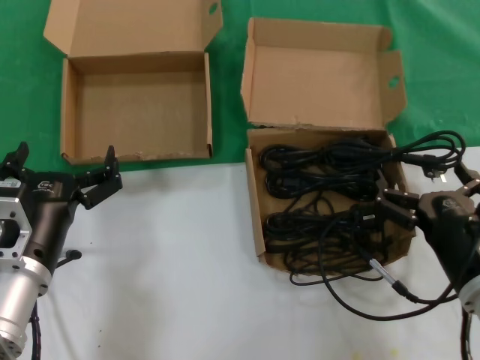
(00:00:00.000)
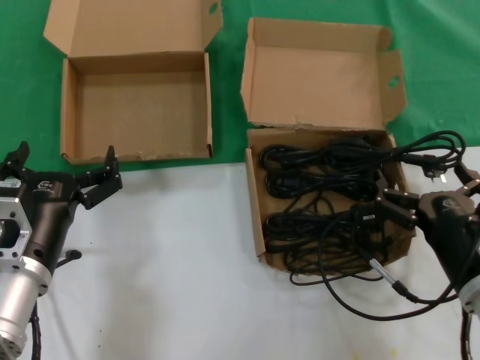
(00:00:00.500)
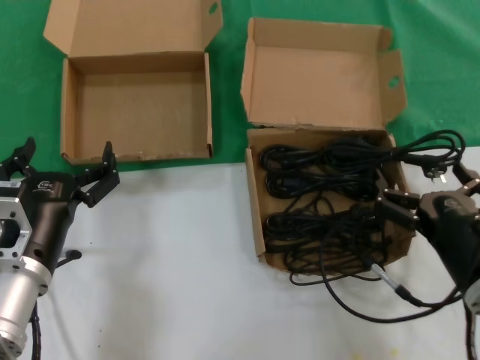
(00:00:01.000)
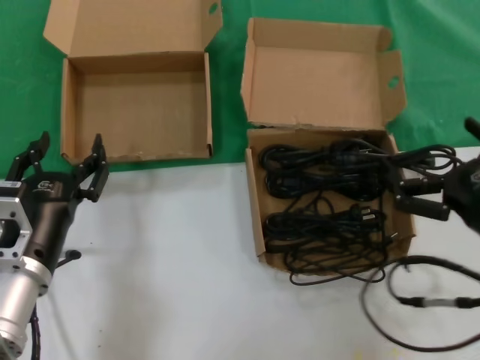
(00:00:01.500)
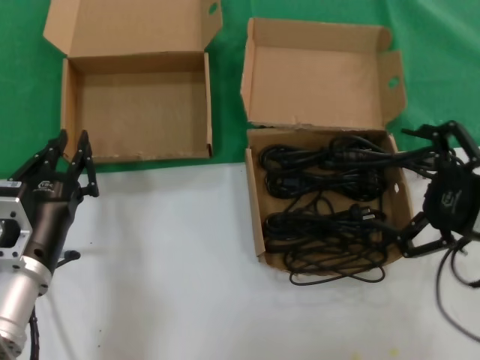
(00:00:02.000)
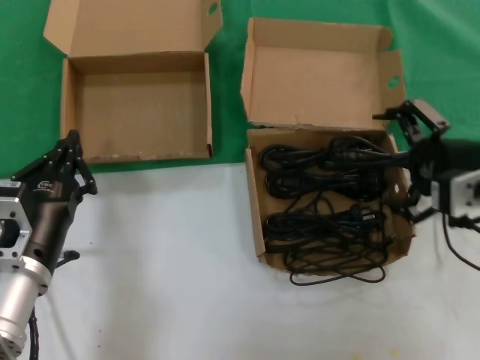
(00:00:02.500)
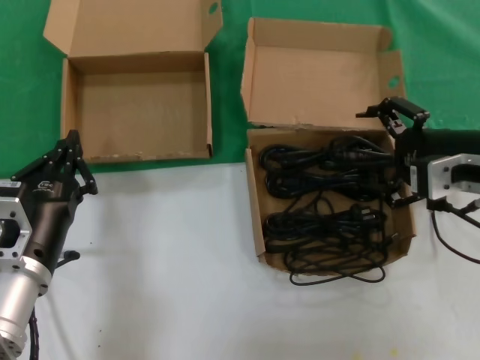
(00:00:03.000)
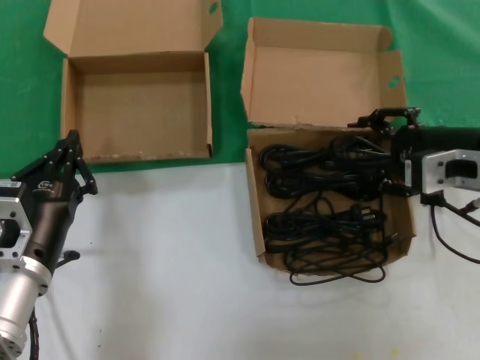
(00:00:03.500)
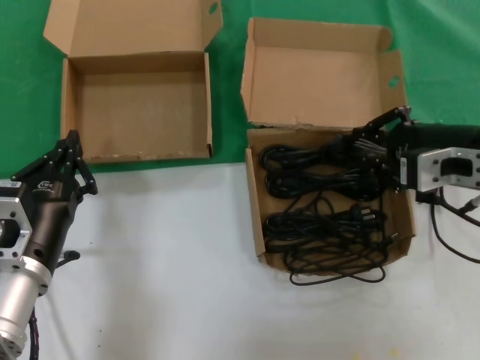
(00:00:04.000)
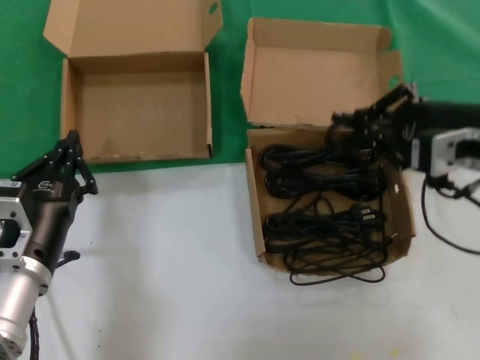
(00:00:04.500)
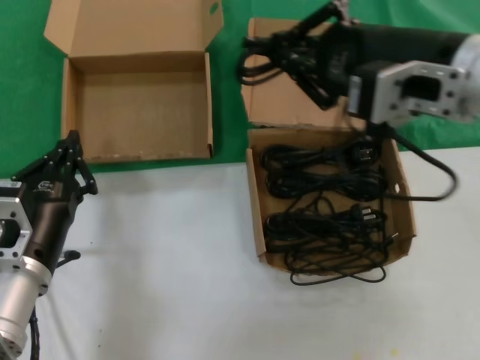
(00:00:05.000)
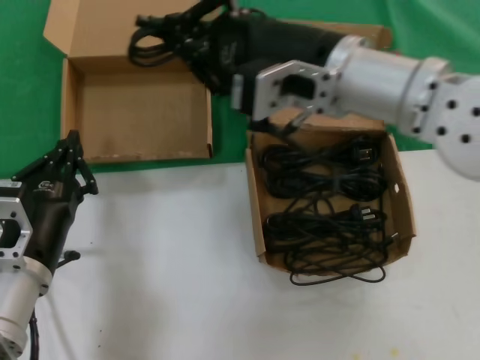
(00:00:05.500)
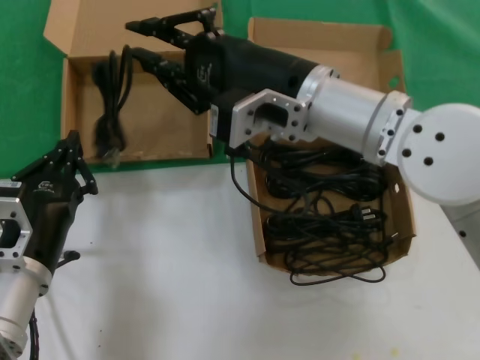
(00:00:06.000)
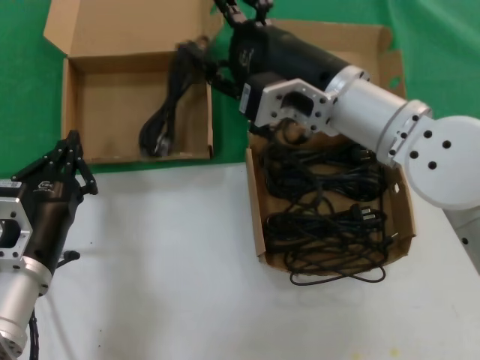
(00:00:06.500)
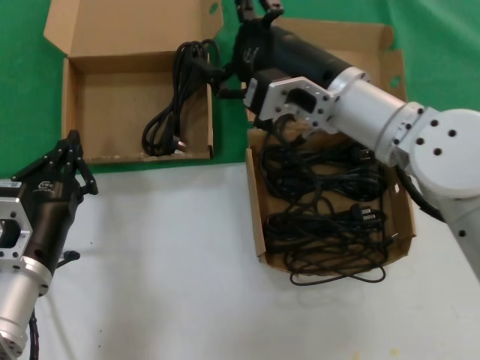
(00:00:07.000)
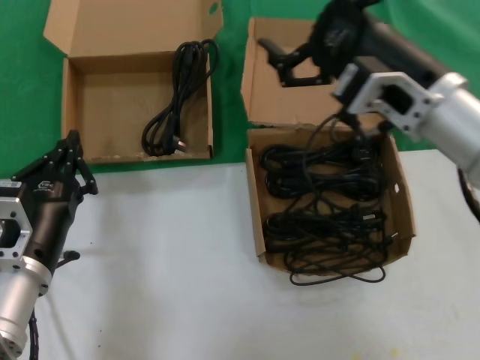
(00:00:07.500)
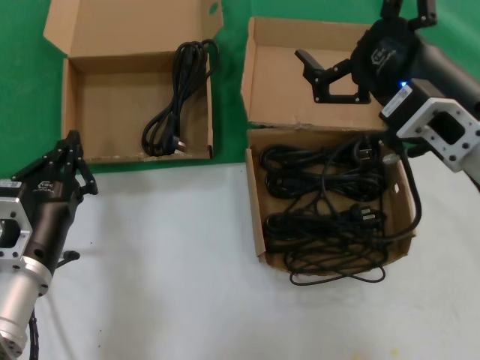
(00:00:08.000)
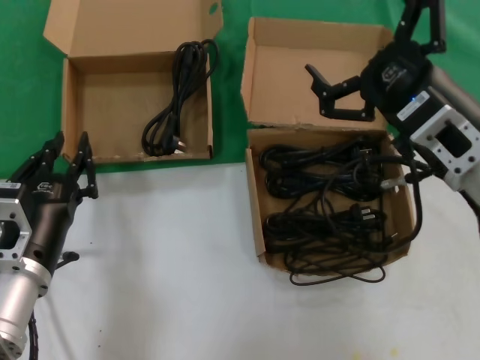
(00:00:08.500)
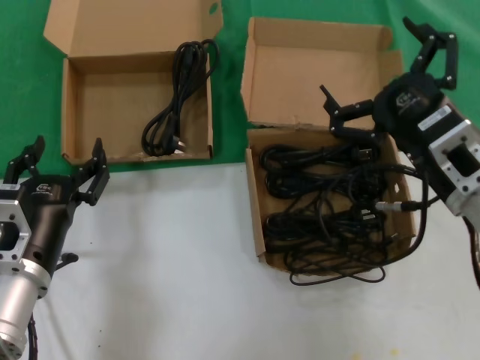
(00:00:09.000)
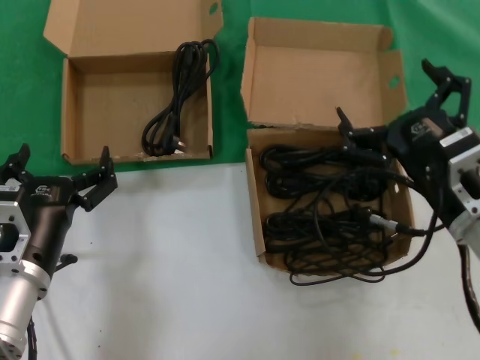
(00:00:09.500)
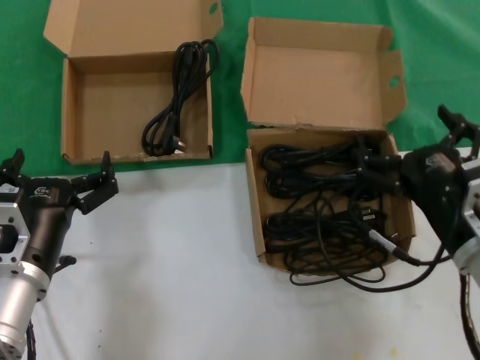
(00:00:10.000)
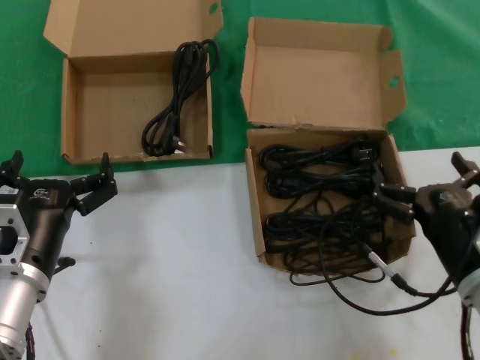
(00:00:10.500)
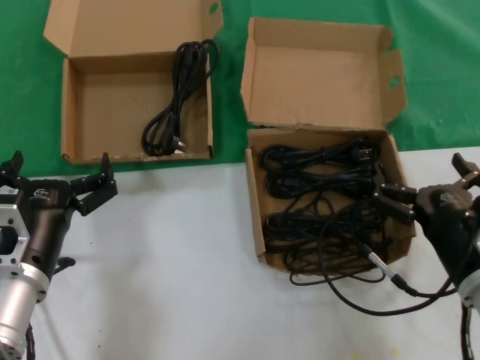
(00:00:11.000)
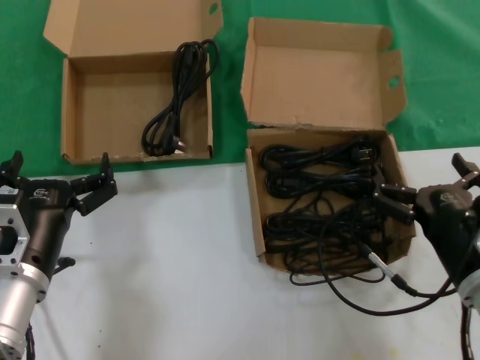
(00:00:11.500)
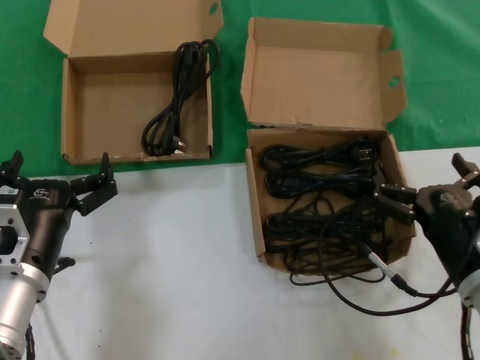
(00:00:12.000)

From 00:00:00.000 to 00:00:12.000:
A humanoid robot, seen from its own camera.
Task of the whole recording: take the parts from the box containing them and put them into an empty box.
Step, from 00:00:00.000 to 00:00:04.000: Grasp the data cable.
Step, from 00:00:04.500 to 00:00:06.500: Place the data cable in the another box.
From 00:00:00.000 to 00:00:02.000: The right hand heads upward and to the right, covering roughly 15 cm.
From 00:00:02.000 to 00:00:04.000: The right hand shifts approximately 10 cm forward.
From 00:00:04.000 to 00:00:06.000: The right hand goes approximately 20 cm to the left.
From 00:00:06.000 to 00:00:08.000: The right hand goes roughly 15 cm to the right and backward.
From 00:00:08.000 to 00:00:10.000: The right hand goes about 15 cm downward.
From 00:00:10.000 to 00:00:12.000: There are only small adjustments of the hands.

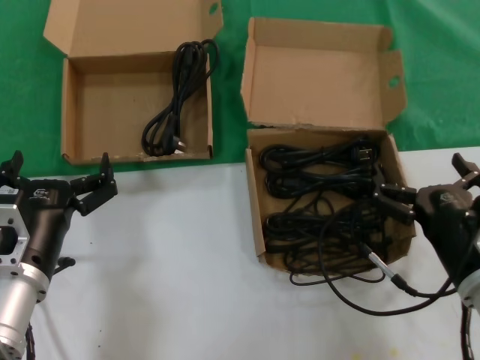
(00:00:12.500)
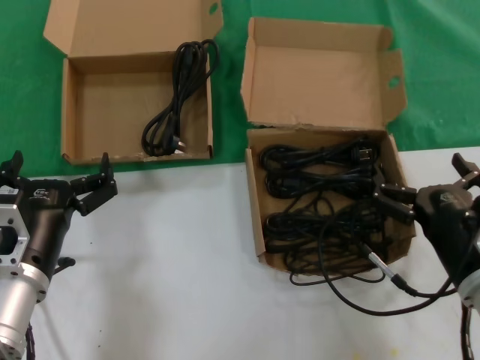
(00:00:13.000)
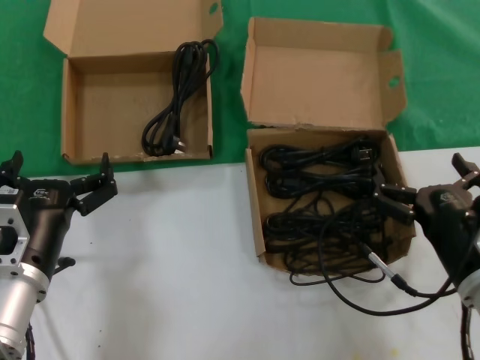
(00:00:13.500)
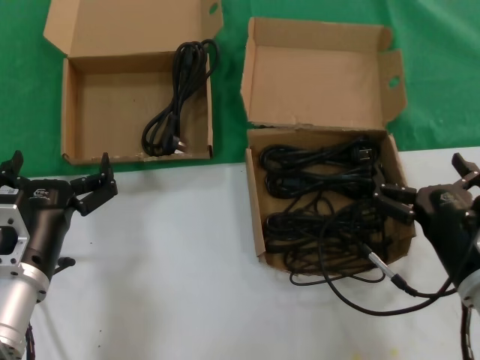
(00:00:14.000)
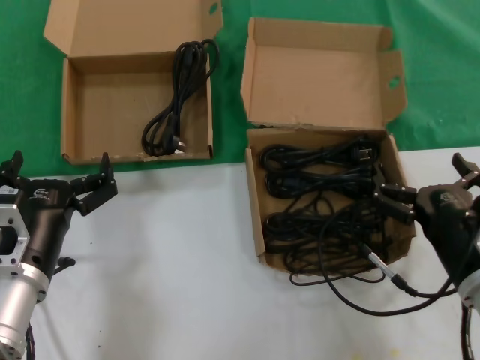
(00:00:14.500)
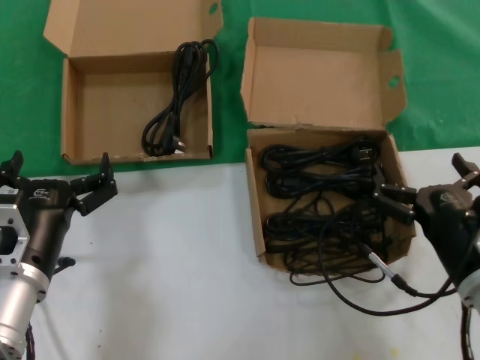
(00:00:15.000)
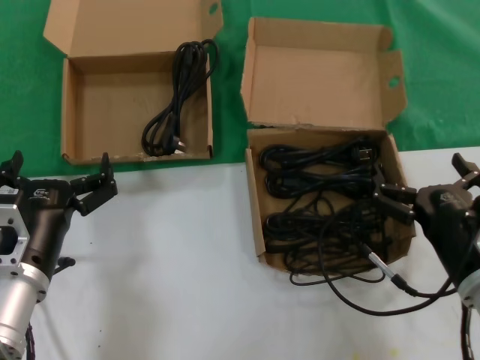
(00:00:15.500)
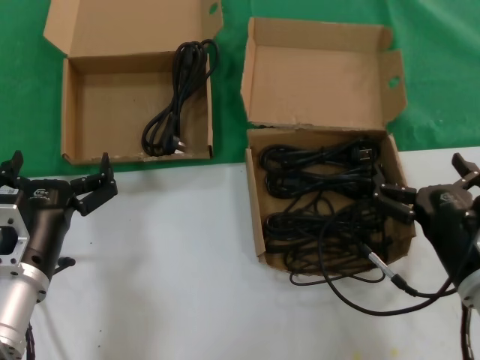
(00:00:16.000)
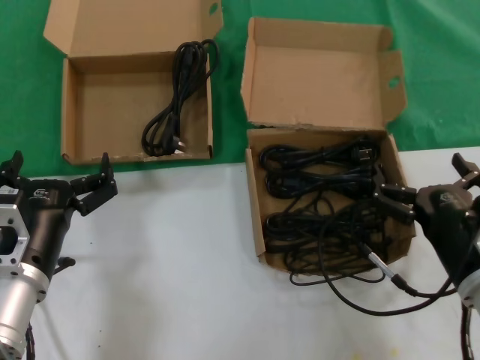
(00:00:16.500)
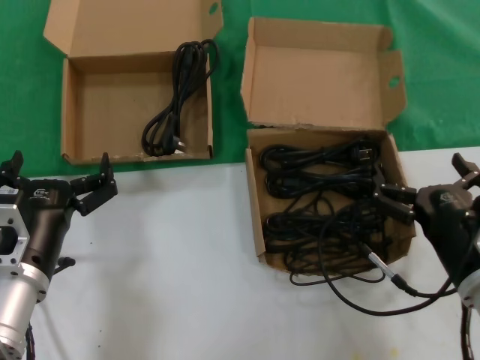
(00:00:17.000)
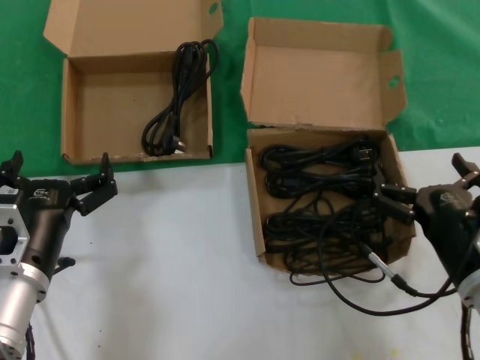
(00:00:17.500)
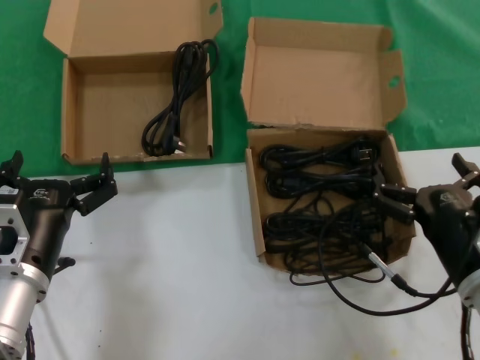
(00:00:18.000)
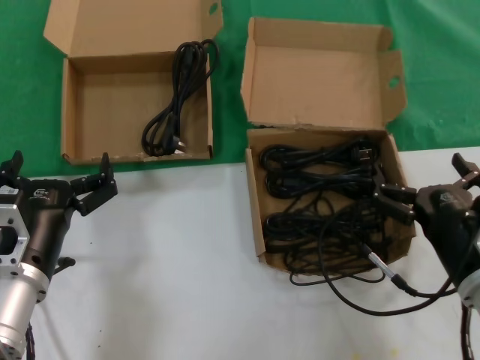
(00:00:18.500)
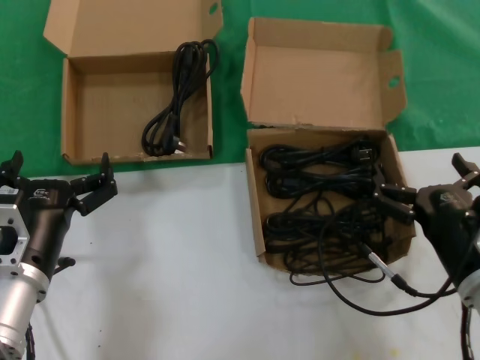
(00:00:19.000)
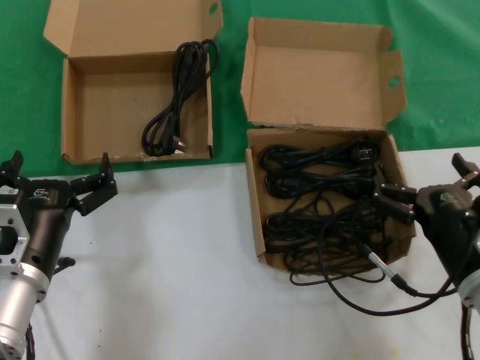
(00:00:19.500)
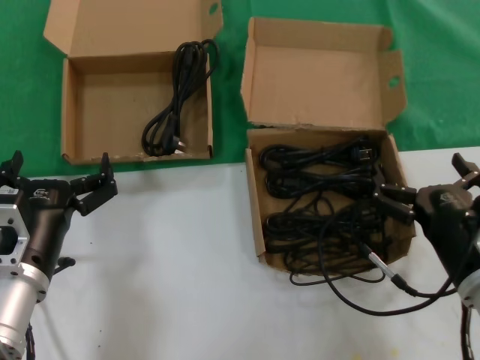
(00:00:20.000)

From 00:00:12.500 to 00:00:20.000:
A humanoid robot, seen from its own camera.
Task of the whole recording: take the parts from the box containing them and put them into an empty box.
From 00:00:12.500 to 00:00:20.000: Both hands stay about where they are.
